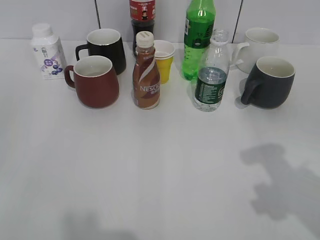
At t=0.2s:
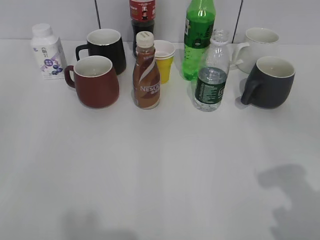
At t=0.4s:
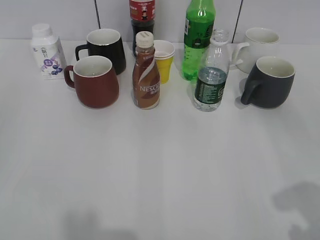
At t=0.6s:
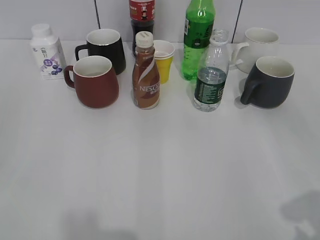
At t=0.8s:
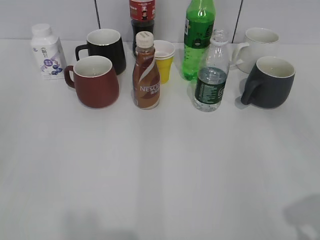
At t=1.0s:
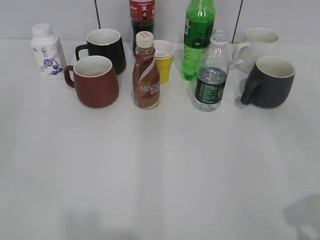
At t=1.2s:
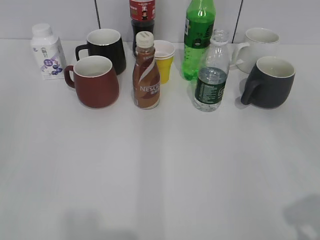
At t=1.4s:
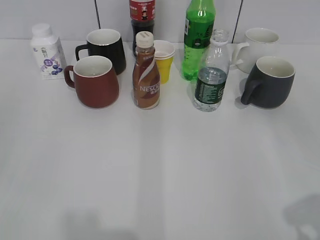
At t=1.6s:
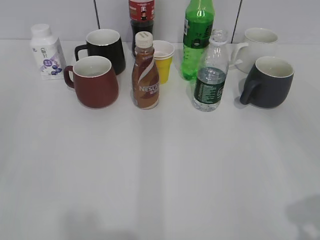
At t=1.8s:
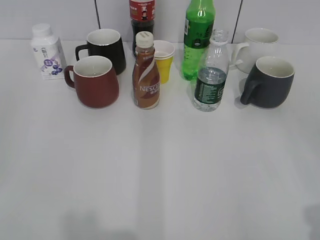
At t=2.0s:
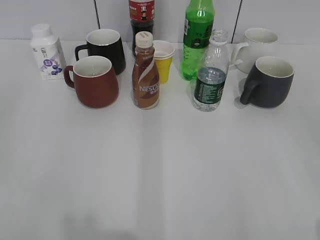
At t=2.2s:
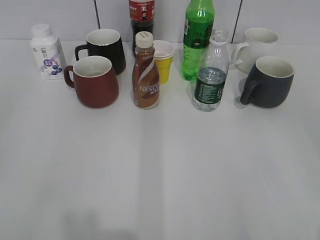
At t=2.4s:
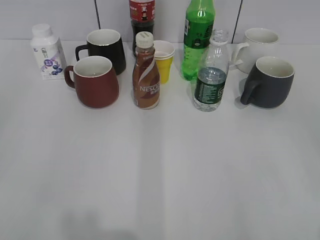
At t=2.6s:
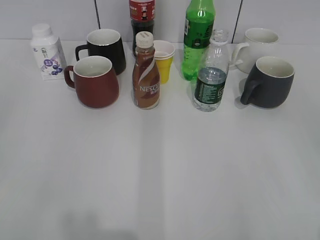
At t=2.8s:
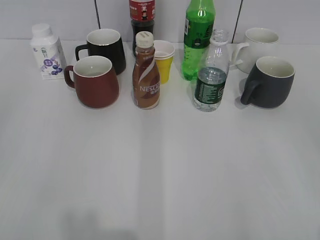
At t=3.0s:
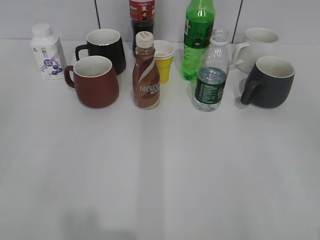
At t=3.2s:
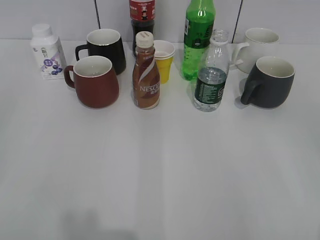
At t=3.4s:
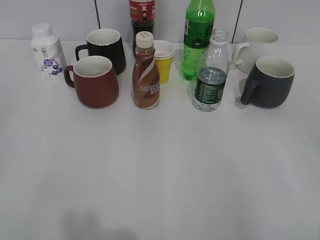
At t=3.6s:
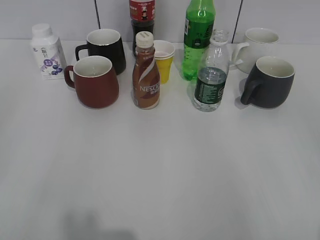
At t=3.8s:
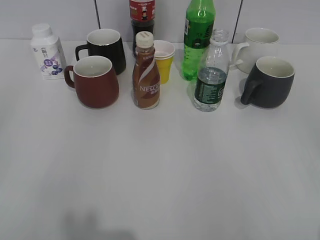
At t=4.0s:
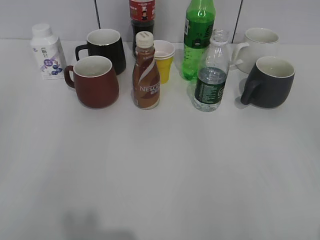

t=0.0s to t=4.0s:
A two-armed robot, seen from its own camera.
t=0.0s to t=1.4s: The right gripper moves backward, some 10 cm.
t=2.6s to t=4.0s: Both grippers stay put.
